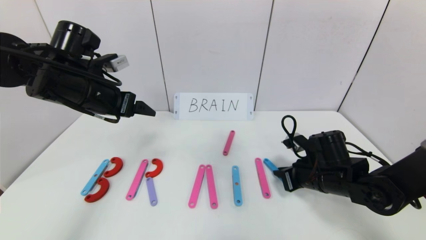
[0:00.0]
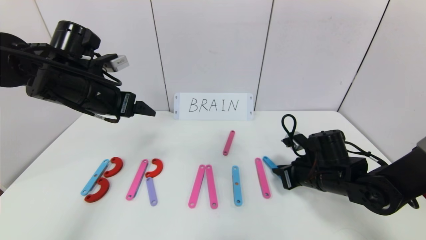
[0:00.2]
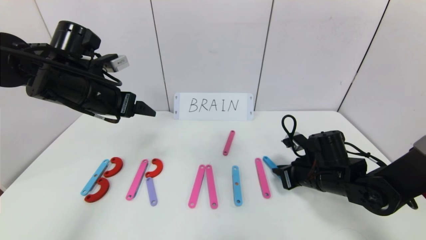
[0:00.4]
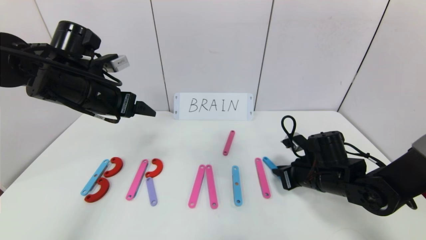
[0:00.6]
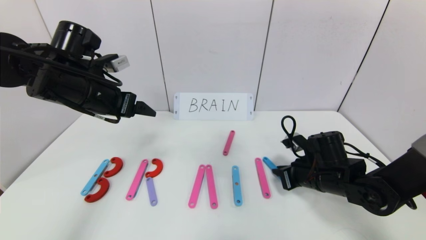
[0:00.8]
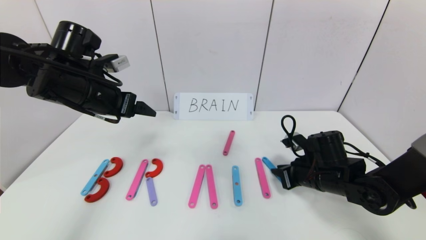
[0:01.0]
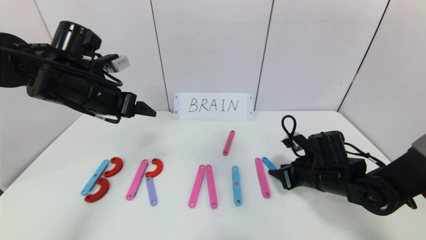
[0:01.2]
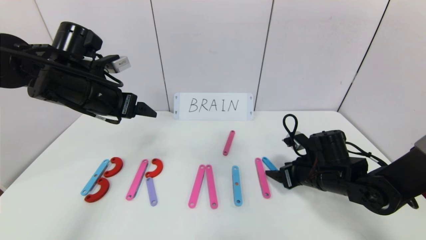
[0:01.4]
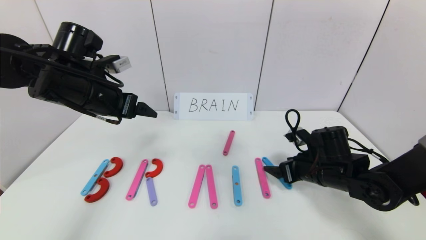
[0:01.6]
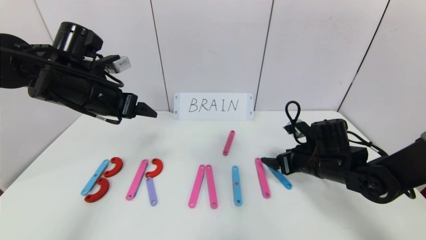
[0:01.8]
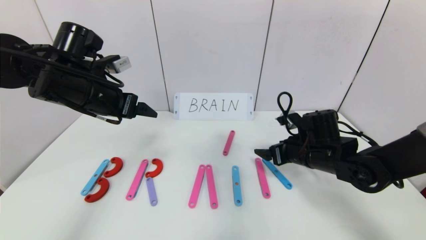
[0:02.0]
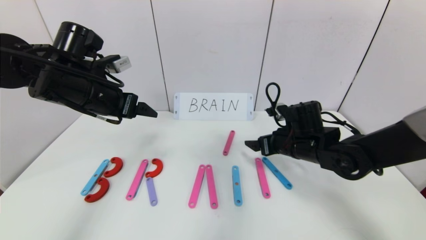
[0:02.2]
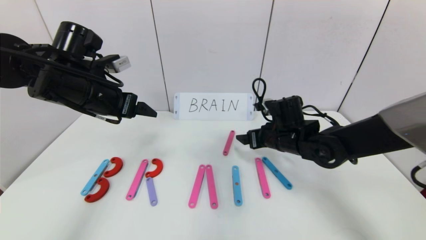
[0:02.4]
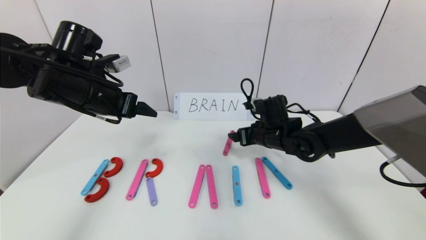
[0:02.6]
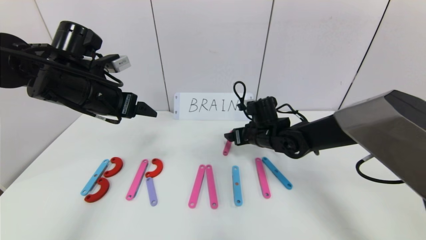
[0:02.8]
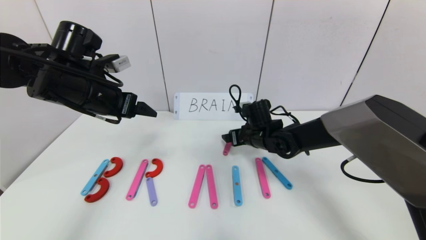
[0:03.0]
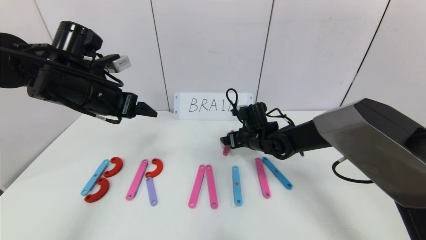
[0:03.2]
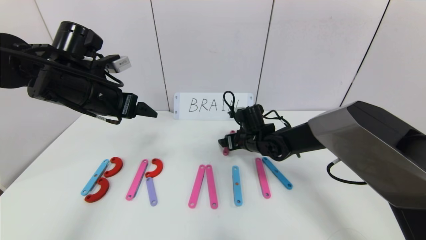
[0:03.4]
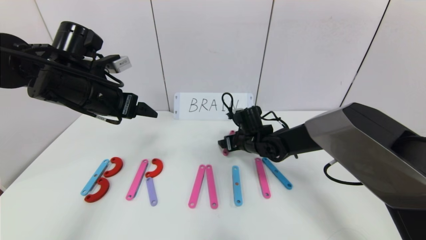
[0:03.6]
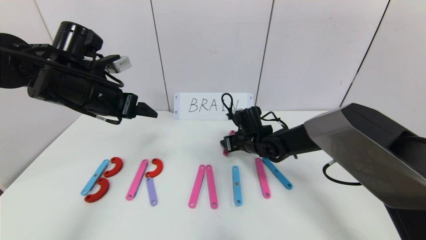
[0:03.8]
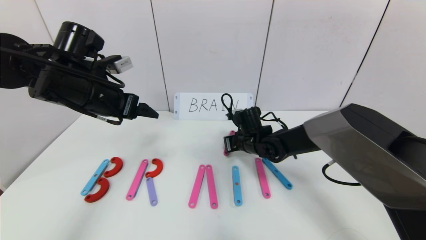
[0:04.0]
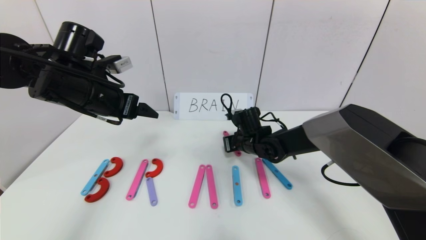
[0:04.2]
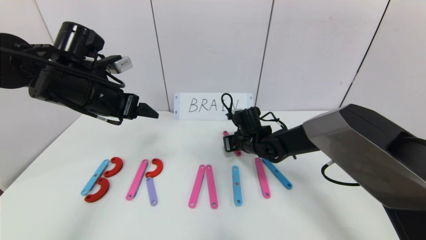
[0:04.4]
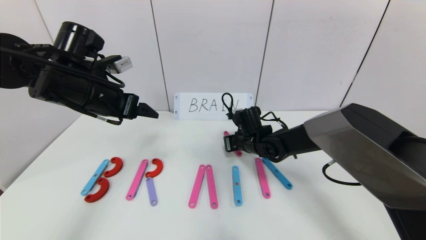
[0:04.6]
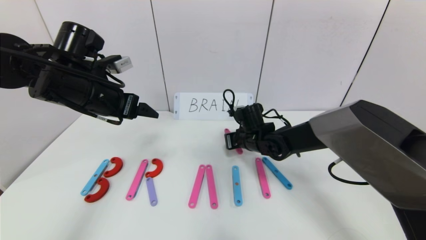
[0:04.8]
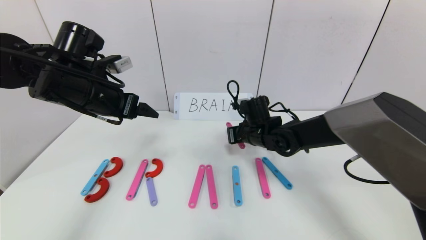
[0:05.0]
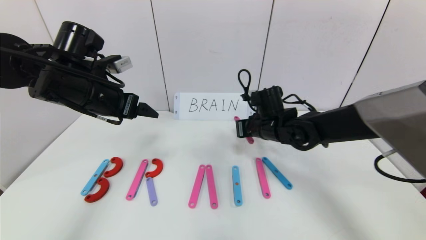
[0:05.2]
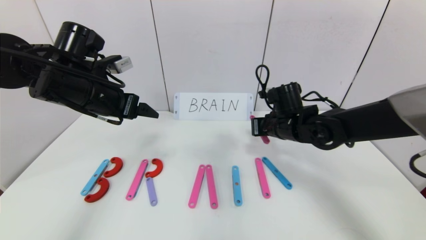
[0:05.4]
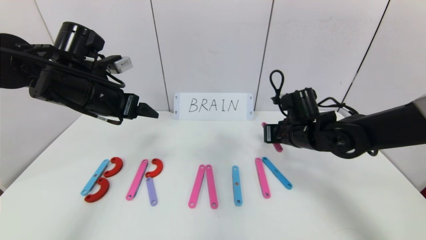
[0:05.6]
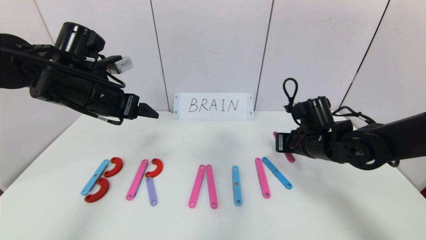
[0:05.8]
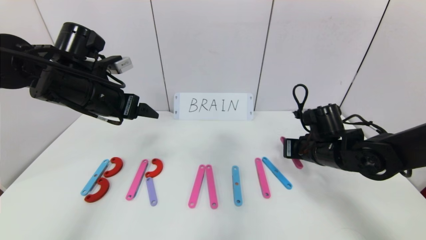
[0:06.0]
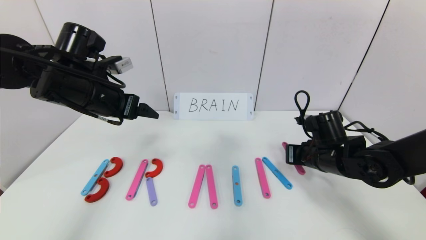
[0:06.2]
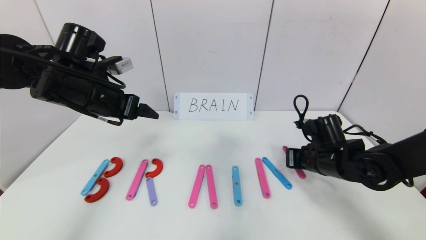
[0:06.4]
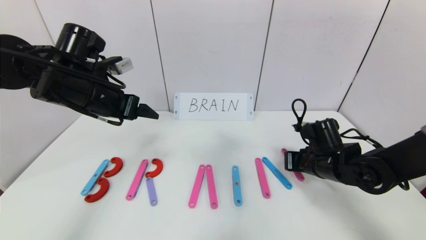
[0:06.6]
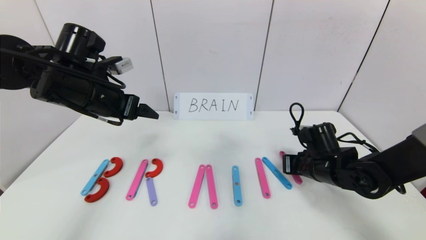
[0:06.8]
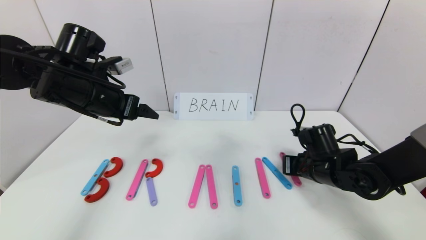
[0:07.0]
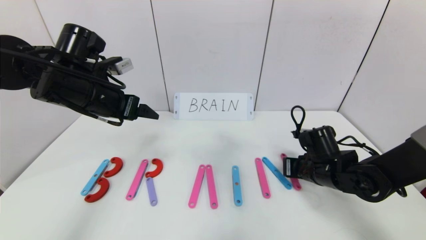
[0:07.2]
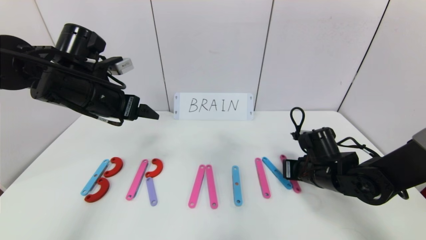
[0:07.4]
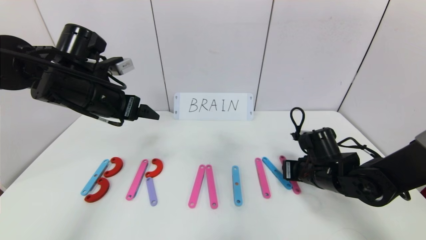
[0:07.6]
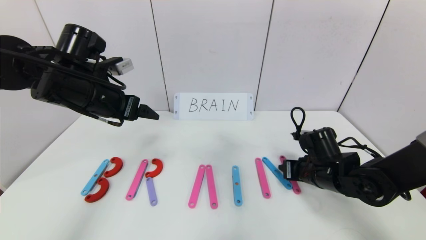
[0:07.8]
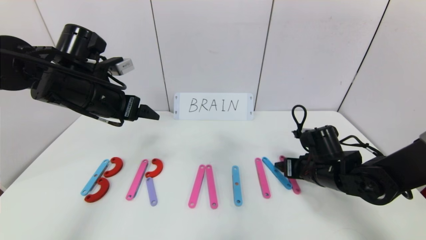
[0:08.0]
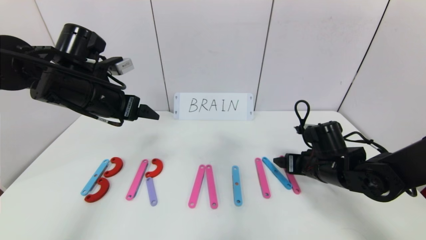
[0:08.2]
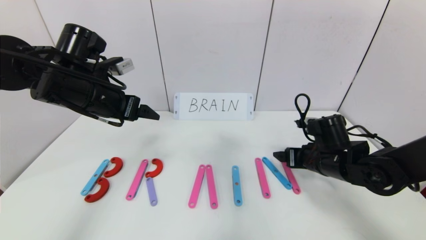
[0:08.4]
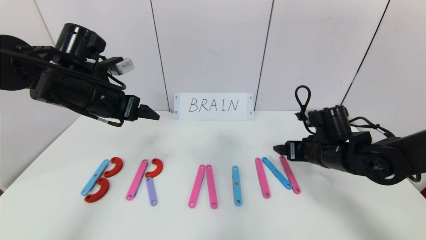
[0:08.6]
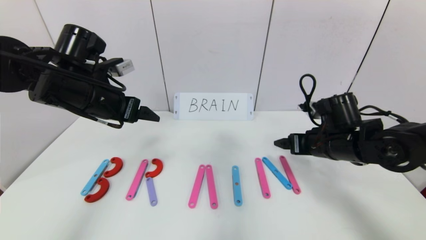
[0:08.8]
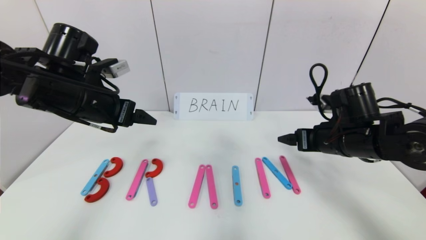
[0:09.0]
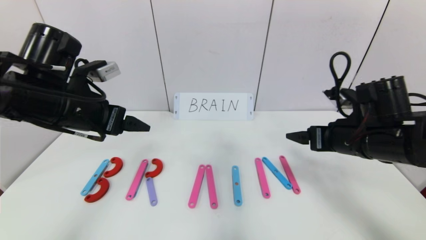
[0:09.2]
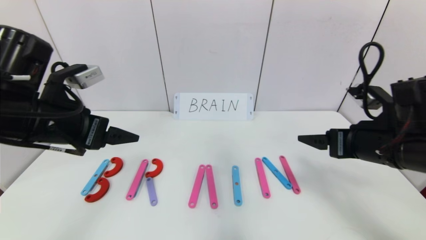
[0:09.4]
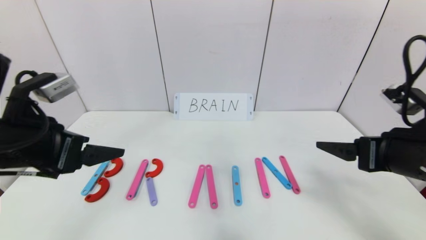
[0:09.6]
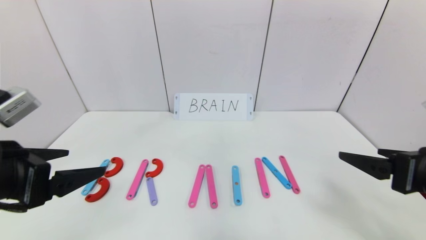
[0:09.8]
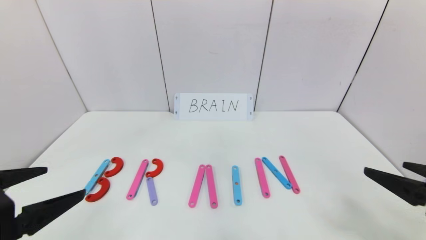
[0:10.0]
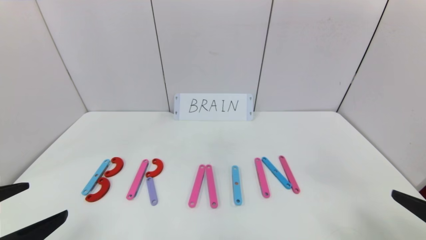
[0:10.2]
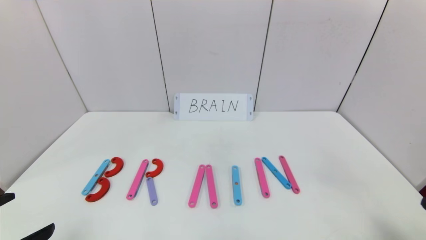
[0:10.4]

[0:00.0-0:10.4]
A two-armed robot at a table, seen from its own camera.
Task of the whole recording: rearrange the word baai as brain.
Step, 0:00.0 to 0:08.4: Place the character N after character I.
0:00.0 to 0:01.4: The right gripper opens its fingers.
0:01.4 to 0:03.0: The right gripper travels to the left and forward by approximately 15 cm.
0:03.0 to 0:04.4: The right gripper closes.
0:04.4 to 0:06.0: The right gripper is displaced to the right and backward by about 15 cm.
0:06.0 to 0:07.4: The grippers make only small movements.
0:07.4 to 0:09.0: The right gripper travels upward by roughly 10 cm, and opens.
0:09.0 to 0:10.4: The grippers both shift backward by roughly 25 cm.

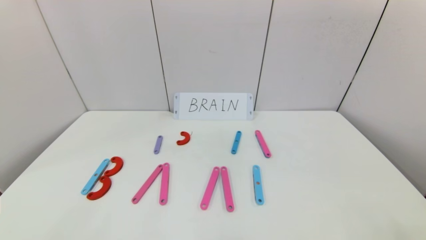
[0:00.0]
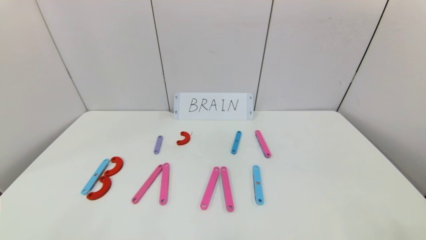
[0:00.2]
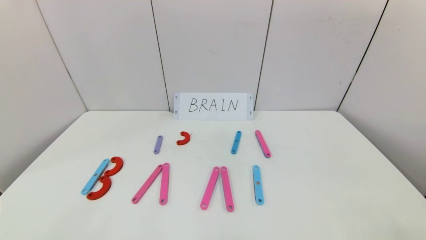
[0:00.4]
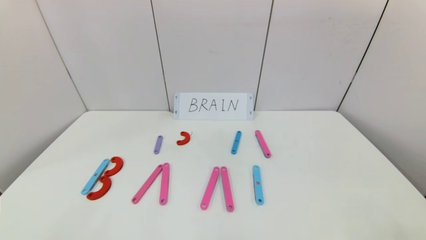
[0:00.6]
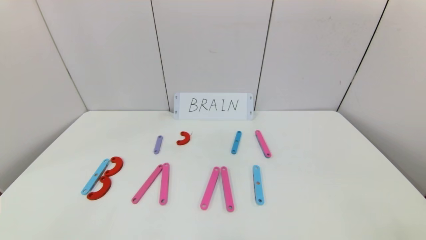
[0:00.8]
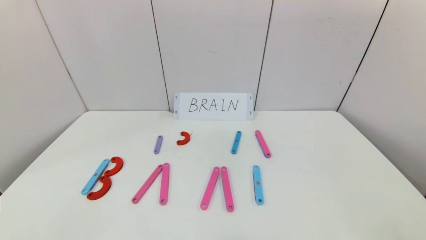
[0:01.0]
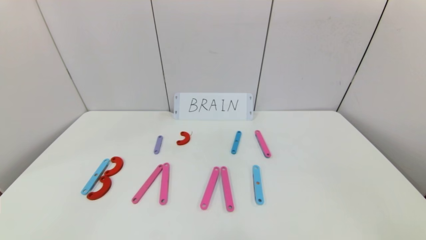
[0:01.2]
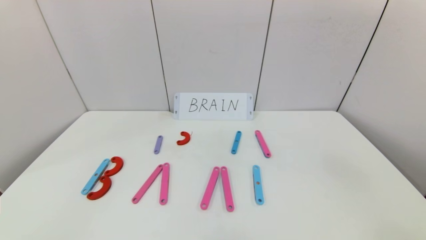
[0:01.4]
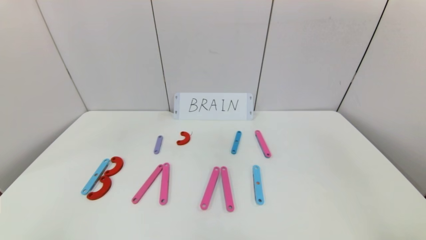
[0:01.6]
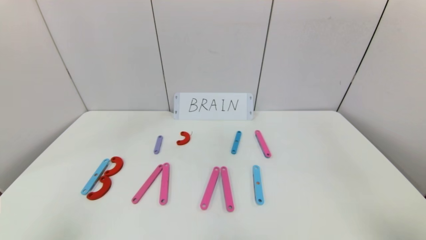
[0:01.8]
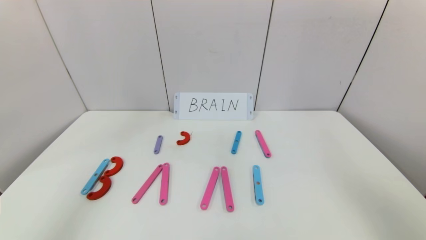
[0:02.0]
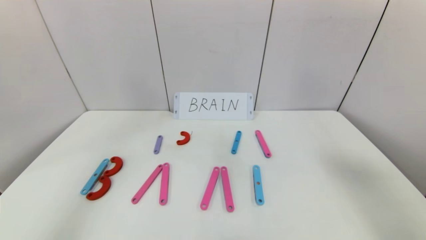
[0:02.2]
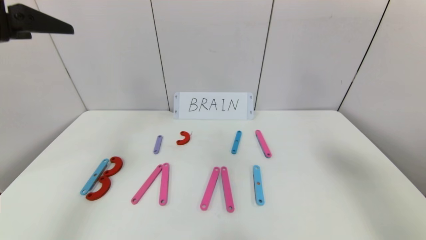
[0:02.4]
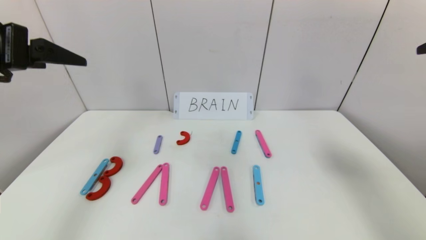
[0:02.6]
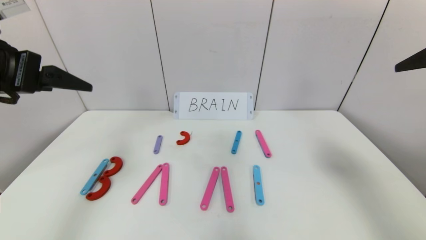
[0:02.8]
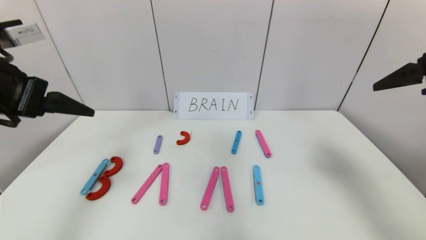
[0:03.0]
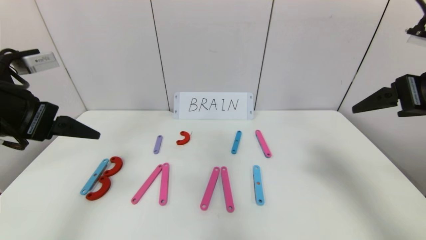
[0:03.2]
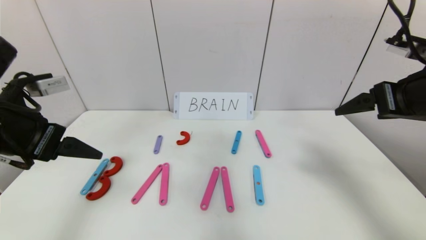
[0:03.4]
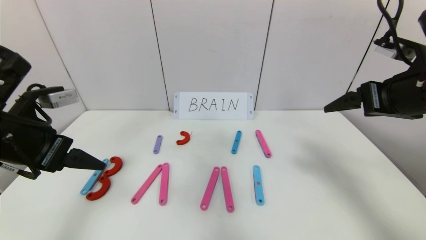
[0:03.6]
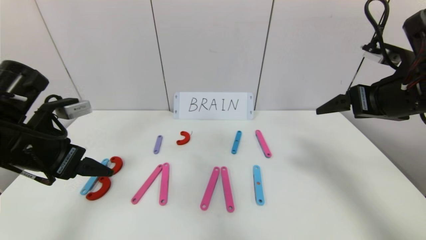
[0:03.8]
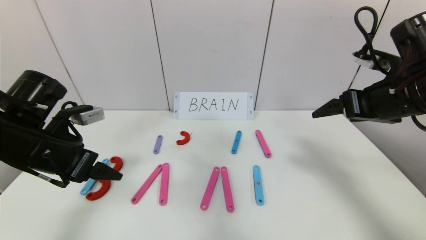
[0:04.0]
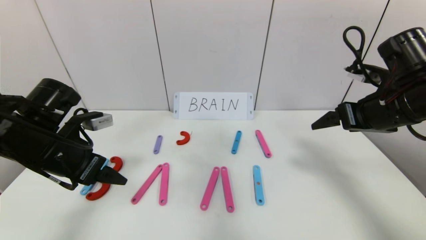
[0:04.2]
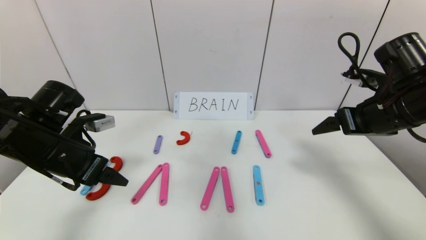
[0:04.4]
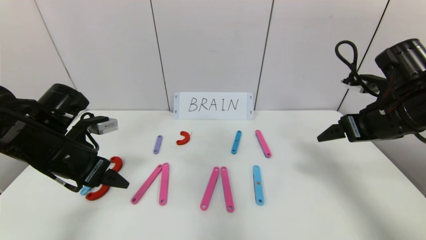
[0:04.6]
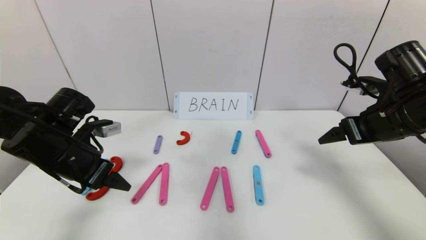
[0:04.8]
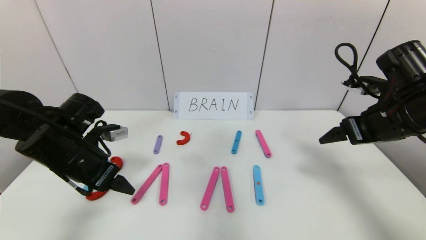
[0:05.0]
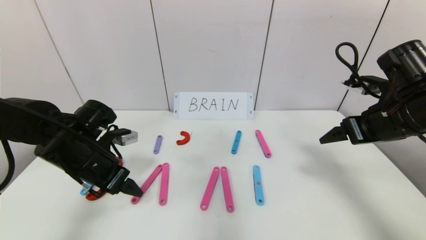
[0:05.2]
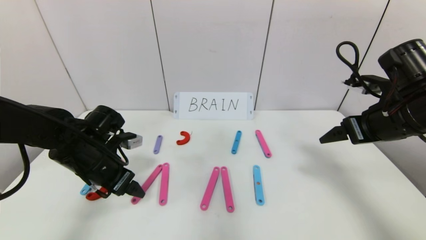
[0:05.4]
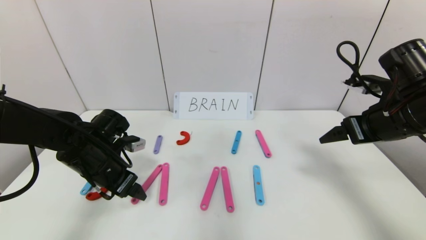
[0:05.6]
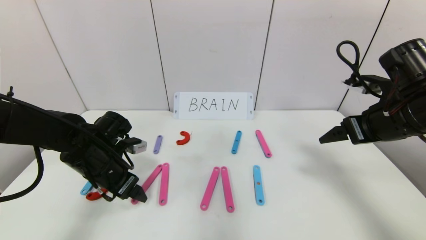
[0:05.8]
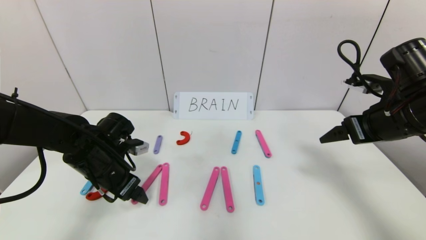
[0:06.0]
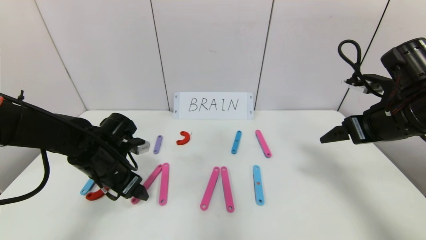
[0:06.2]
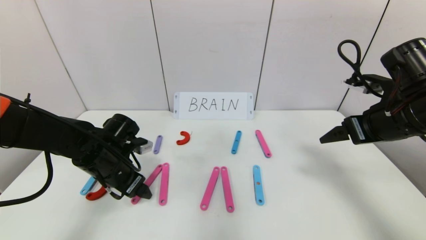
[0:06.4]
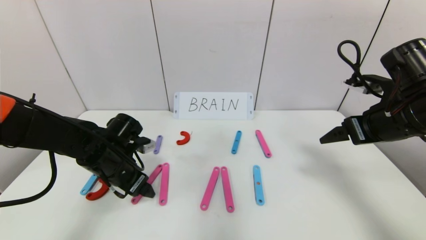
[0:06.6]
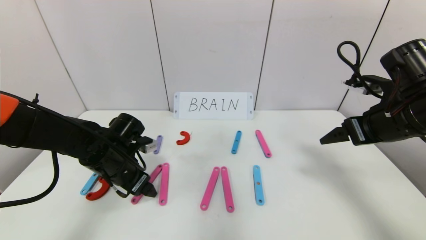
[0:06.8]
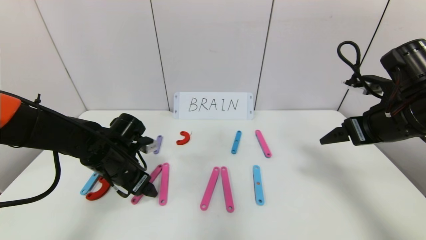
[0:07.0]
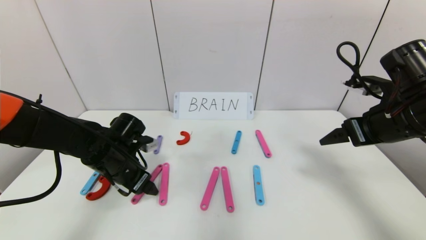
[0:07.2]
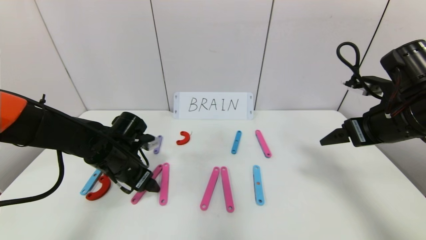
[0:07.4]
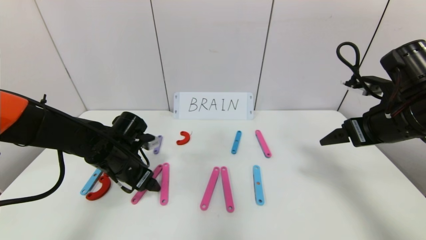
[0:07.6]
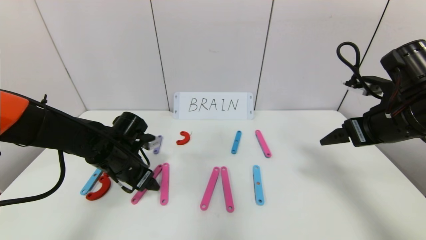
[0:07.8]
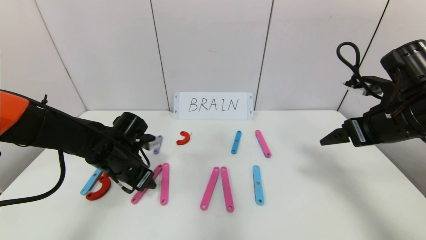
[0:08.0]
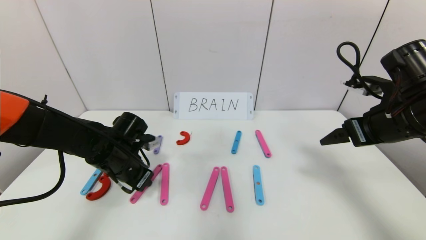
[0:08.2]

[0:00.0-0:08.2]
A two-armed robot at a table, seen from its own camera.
Task of the whole recording: rearrange the word baai as brain.
0:01.6 to 0:03.2: Both grippers travel together forward, roughly 25 cm.
0:03.2 to 0:05.0: The left gripper is displaced downward and forward by about 15 cm. The right gripper moves downward and forward, roughly 10 cm.
0:05.0 to 0:06.6: The left gripper travels downward by roughly 5 cm.
0:06.6 to 0:08.2: The left gripper closes up.
